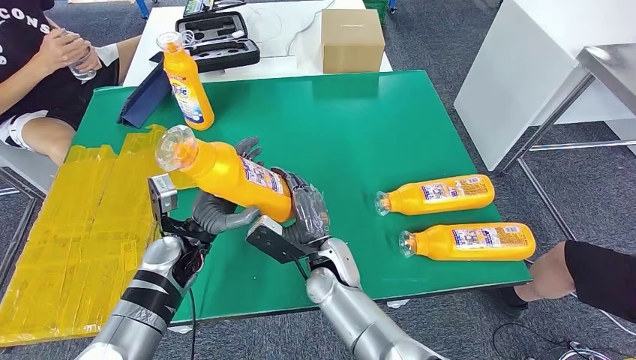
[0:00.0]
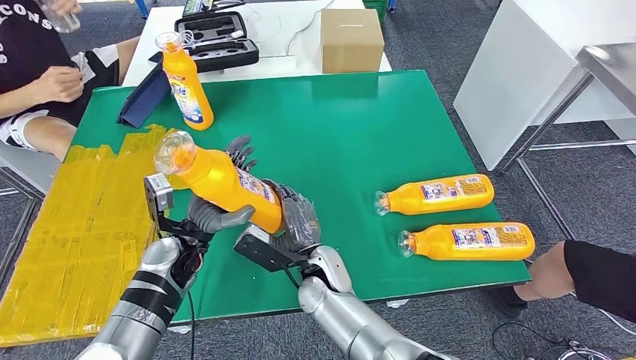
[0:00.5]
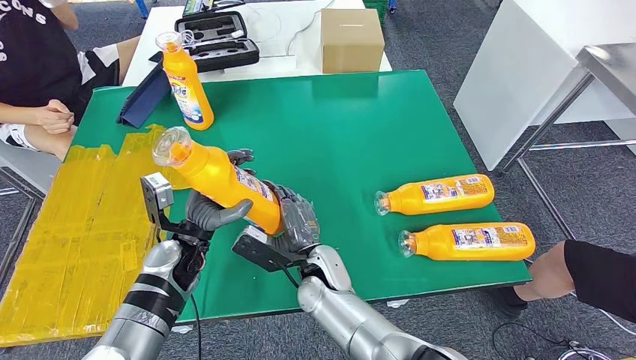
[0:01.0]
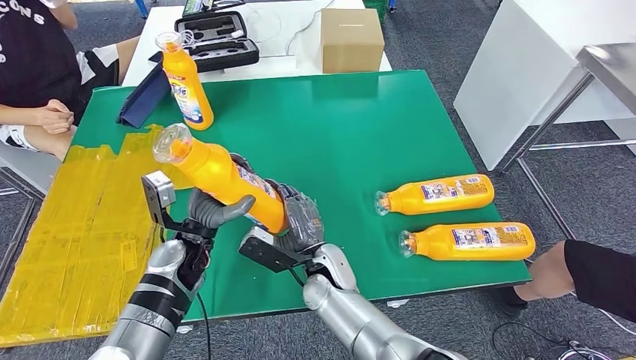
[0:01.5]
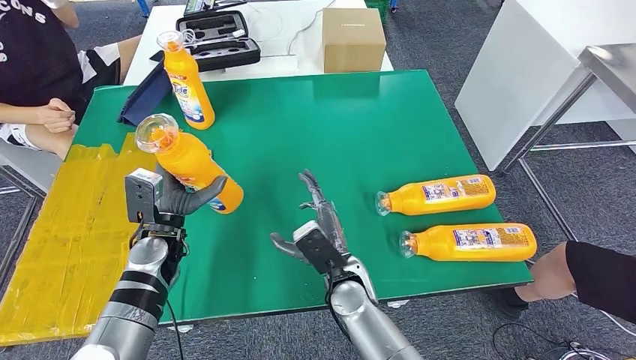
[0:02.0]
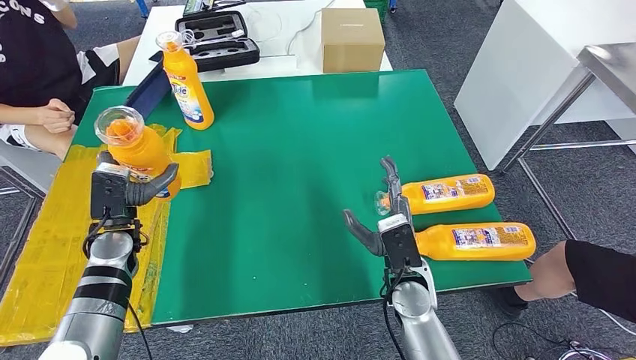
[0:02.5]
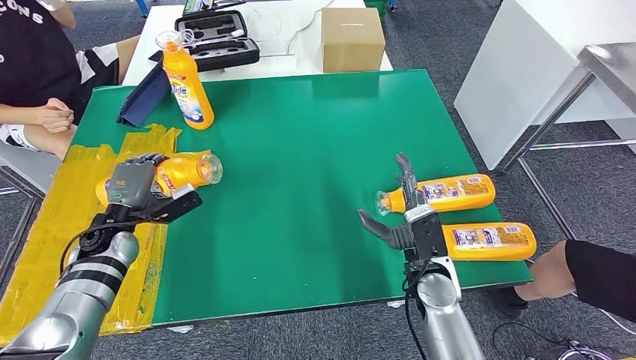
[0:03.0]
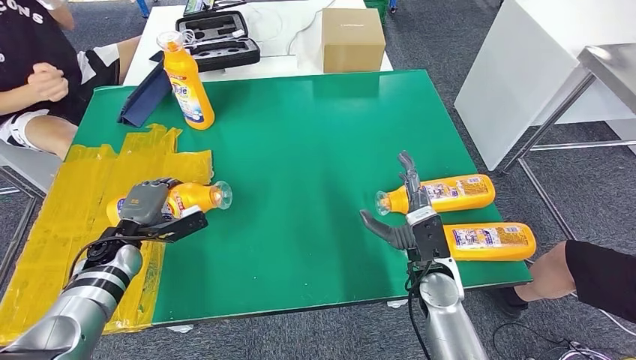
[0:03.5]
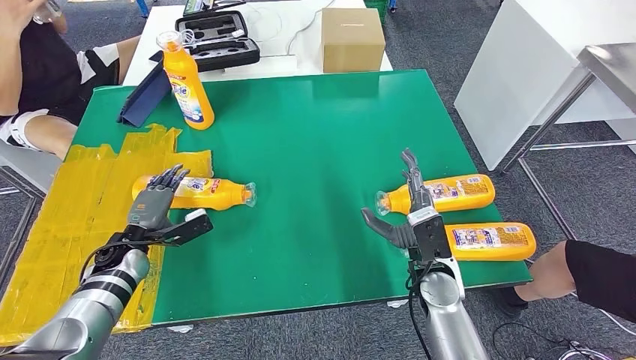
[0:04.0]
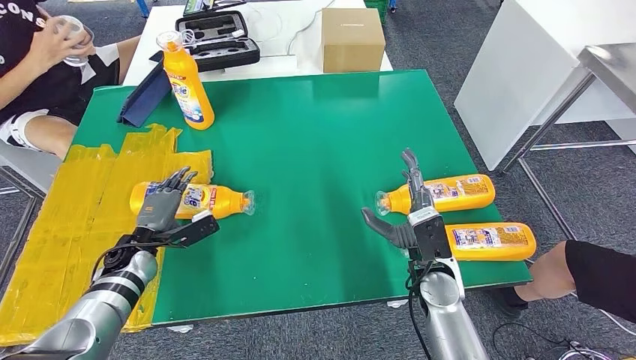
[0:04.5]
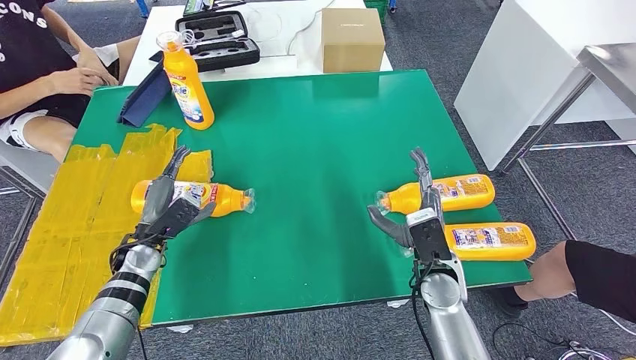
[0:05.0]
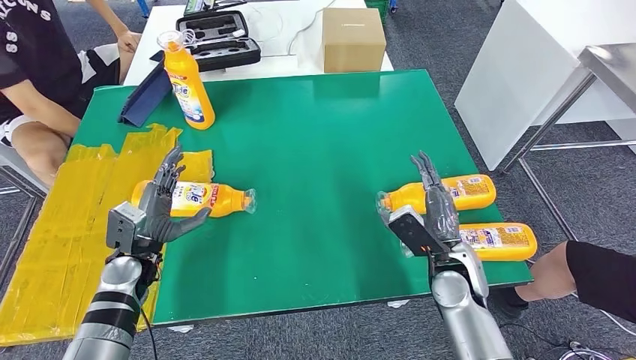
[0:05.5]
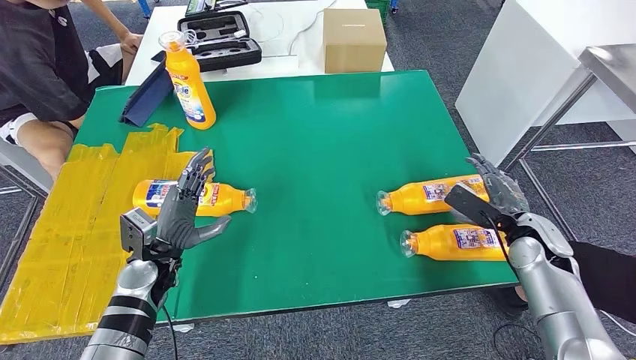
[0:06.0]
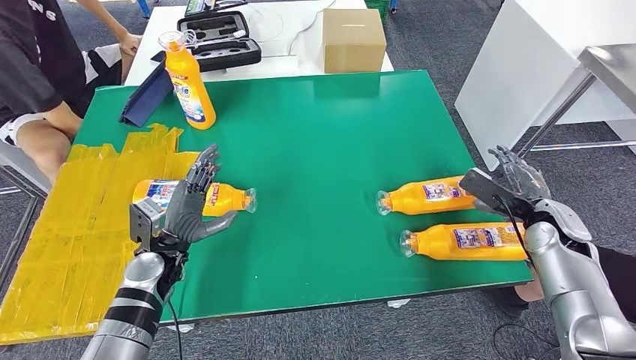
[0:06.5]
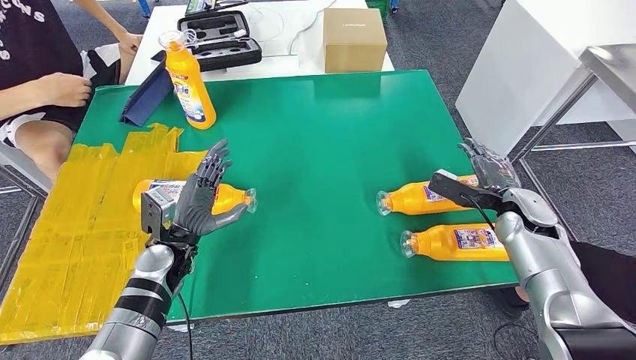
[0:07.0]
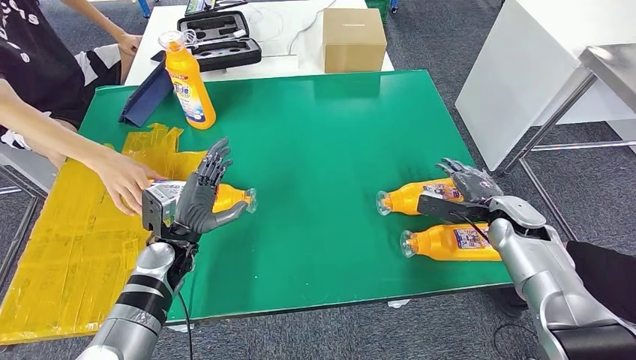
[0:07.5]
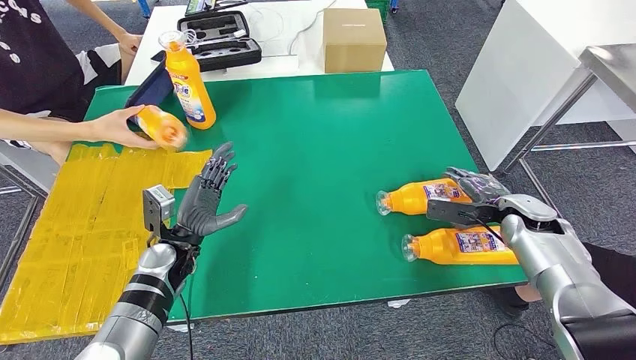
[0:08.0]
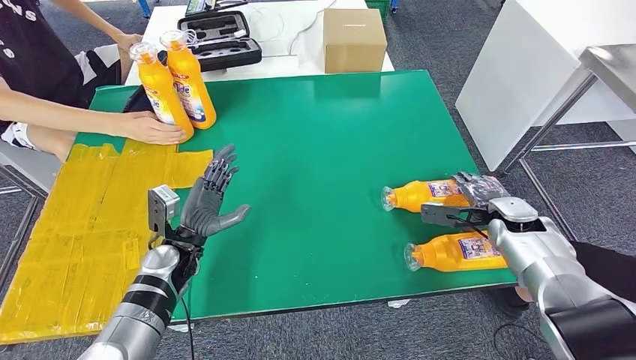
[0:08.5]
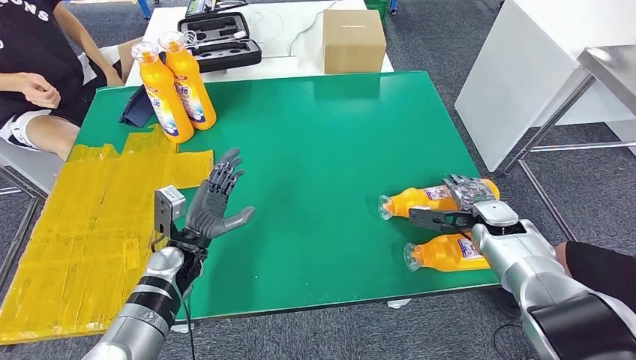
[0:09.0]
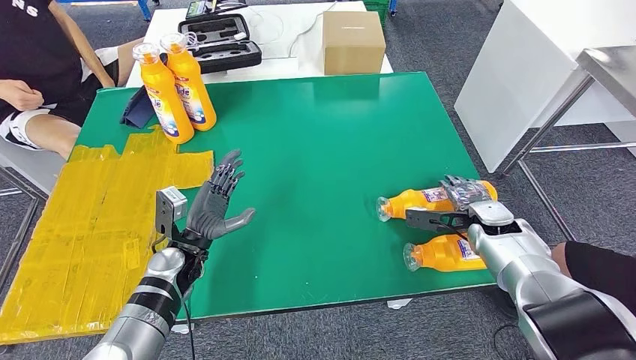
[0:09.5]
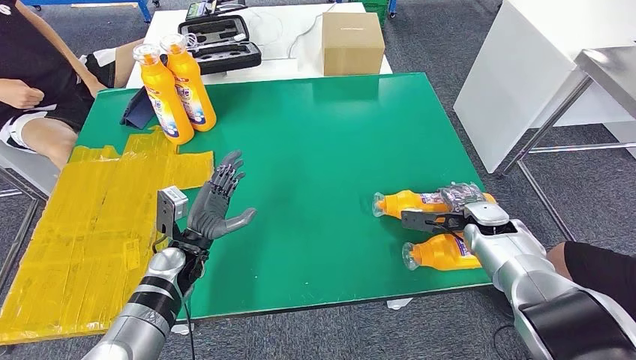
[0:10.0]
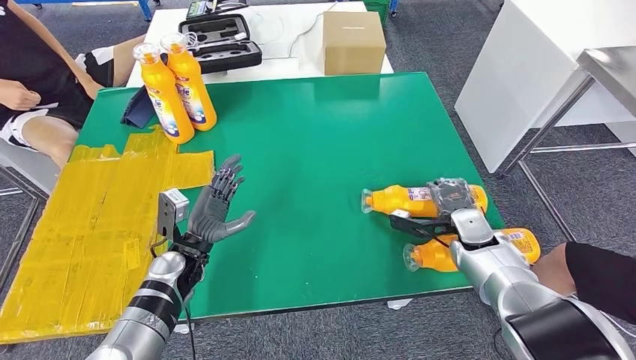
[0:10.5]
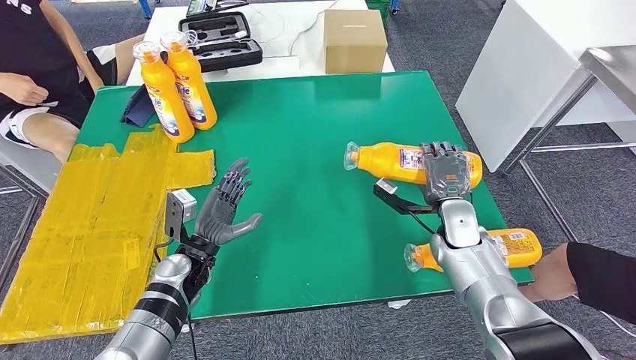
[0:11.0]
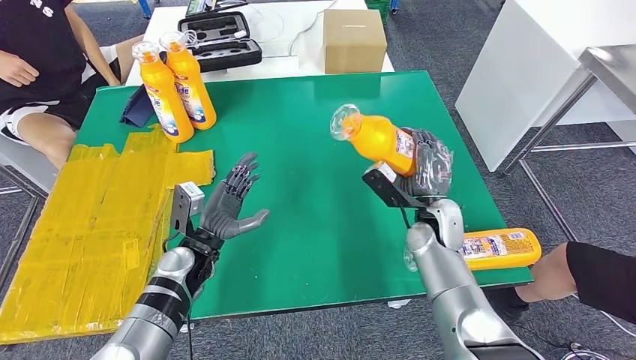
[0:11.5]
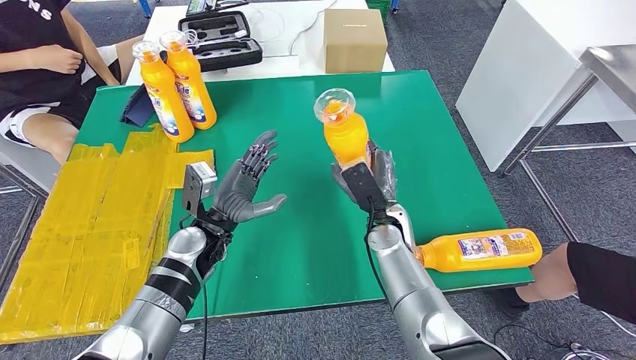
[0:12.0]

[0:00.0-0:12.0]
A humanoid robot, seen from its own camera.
Step, 0:00.0 to 0:04.0: Flip the fast-moving consumer goods bottle to the front side.
0:02.0 to 0:04.0: The right hand moves to the right, approximately 15 cm; the left hand is displaced to the left and downward by some 10 cm.
0:06.0 to 0:08.0: The right hand ends up roughly 5 cm from where it was.

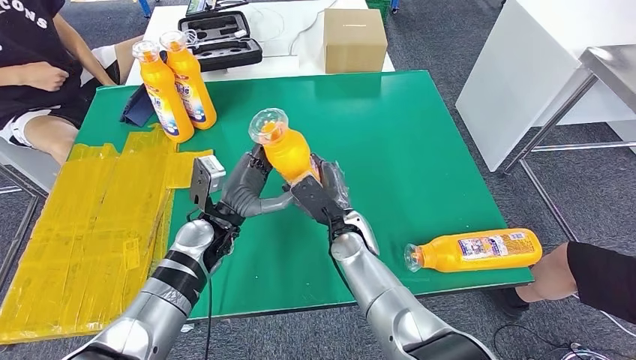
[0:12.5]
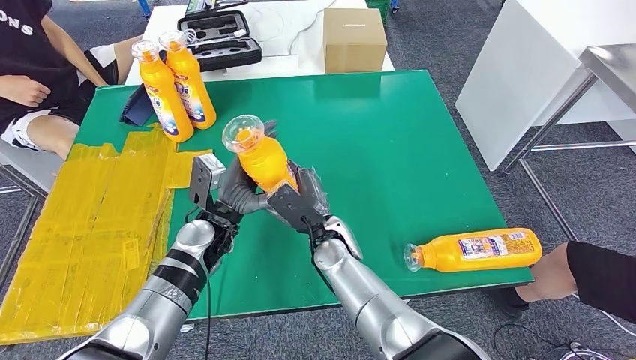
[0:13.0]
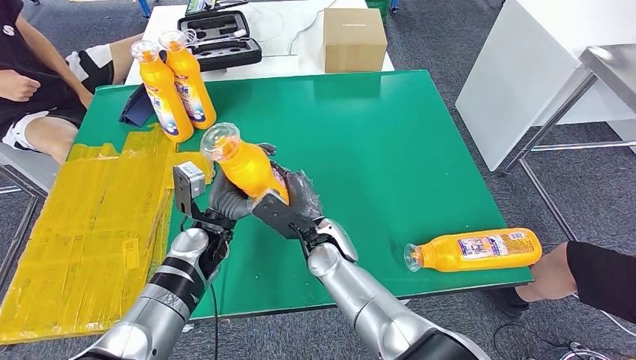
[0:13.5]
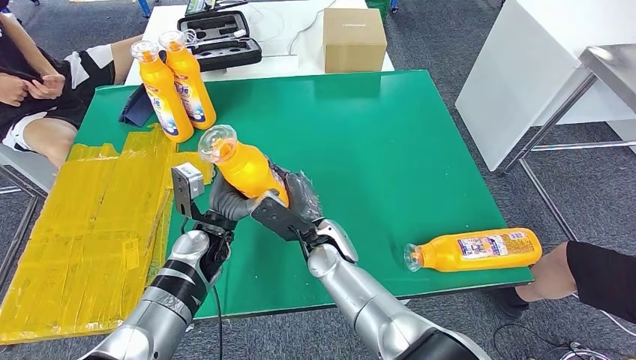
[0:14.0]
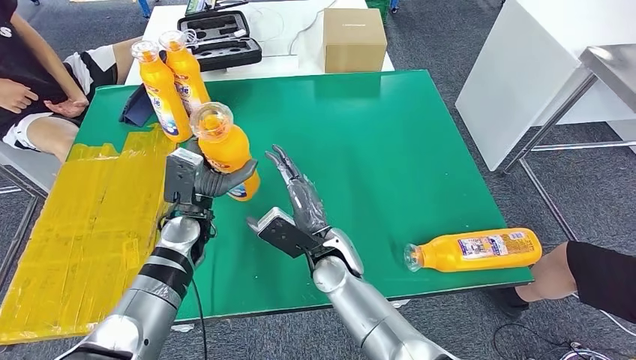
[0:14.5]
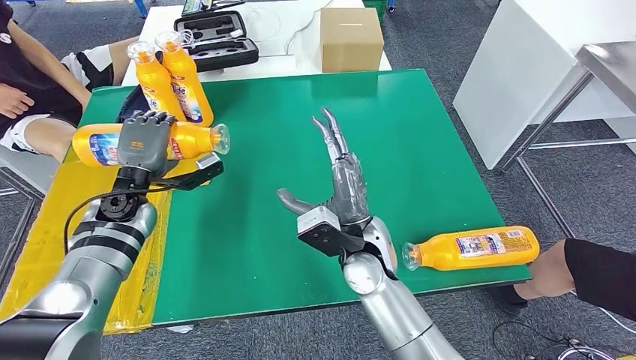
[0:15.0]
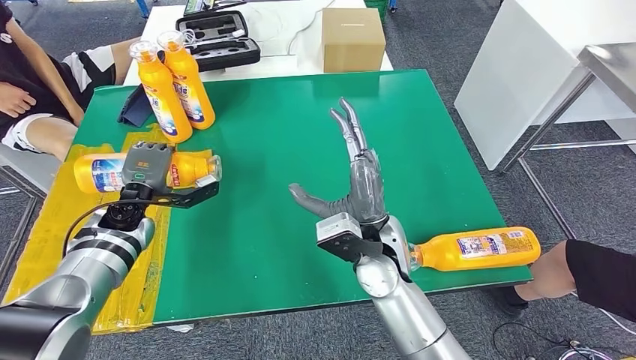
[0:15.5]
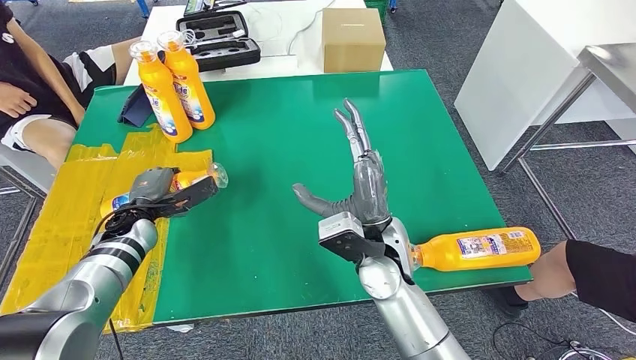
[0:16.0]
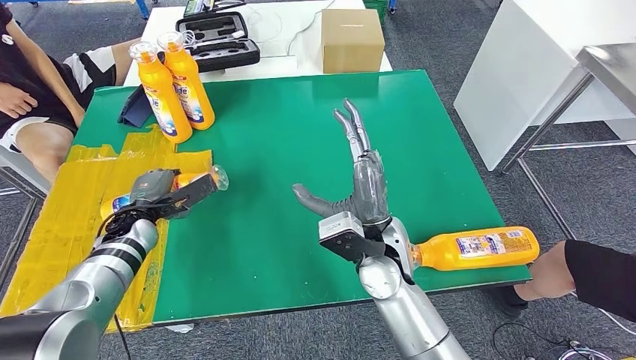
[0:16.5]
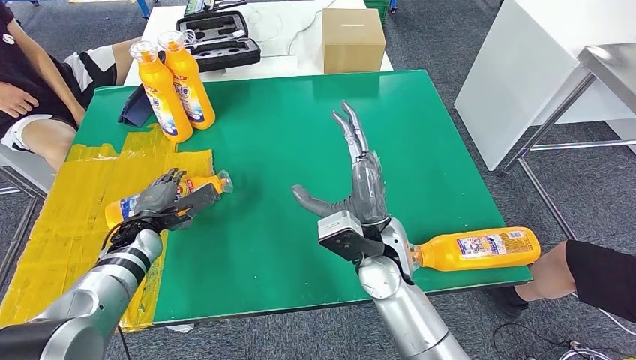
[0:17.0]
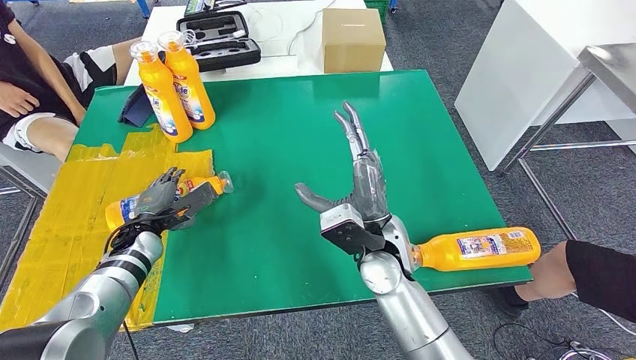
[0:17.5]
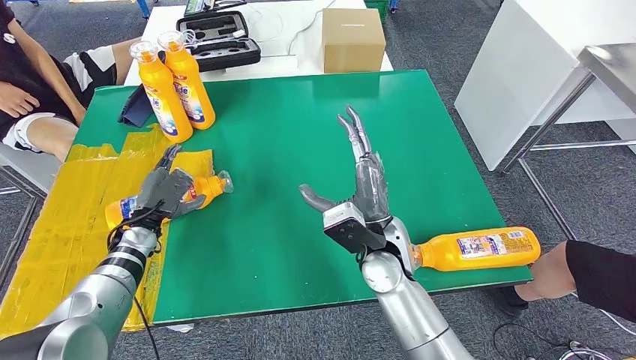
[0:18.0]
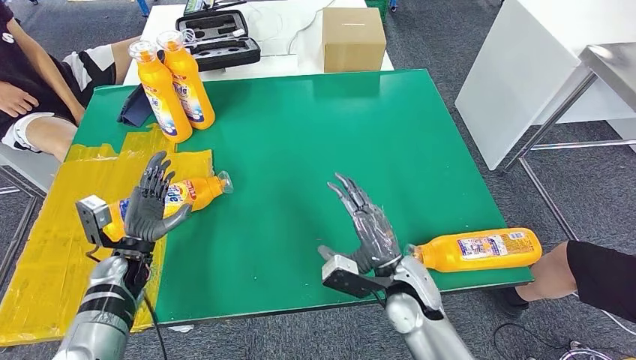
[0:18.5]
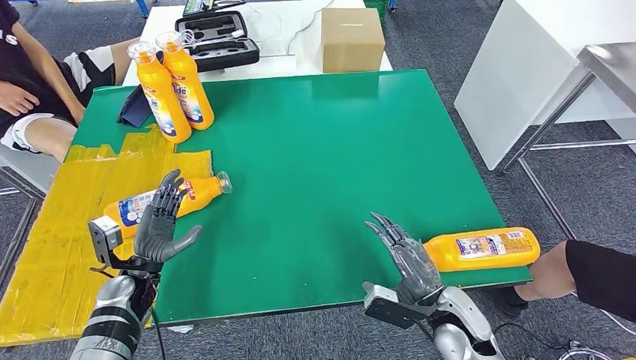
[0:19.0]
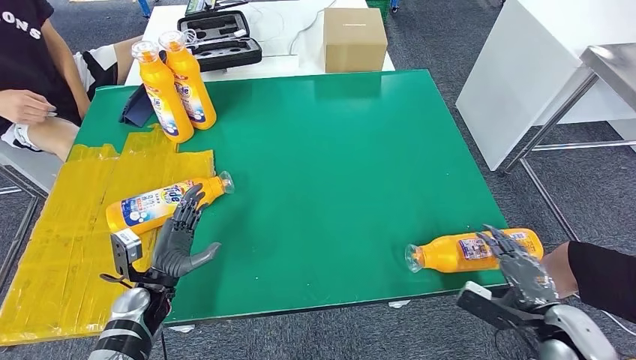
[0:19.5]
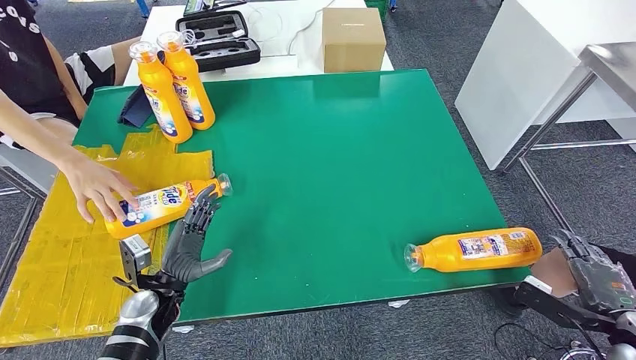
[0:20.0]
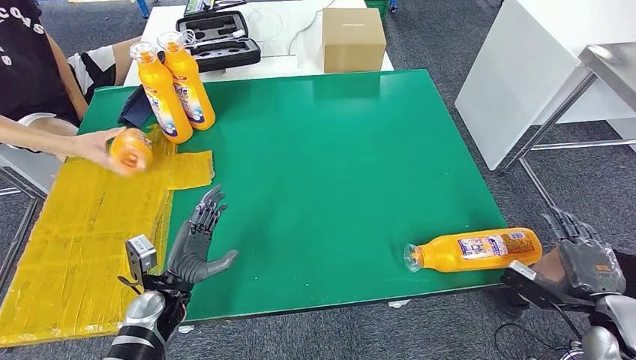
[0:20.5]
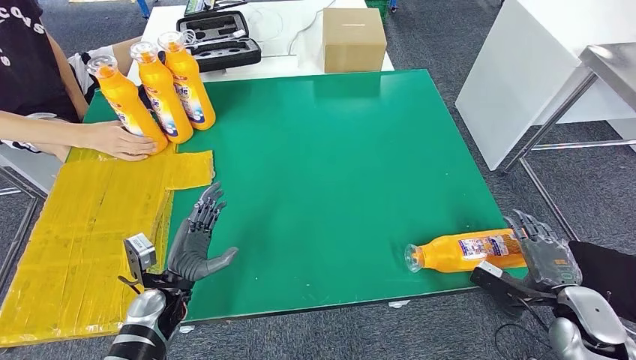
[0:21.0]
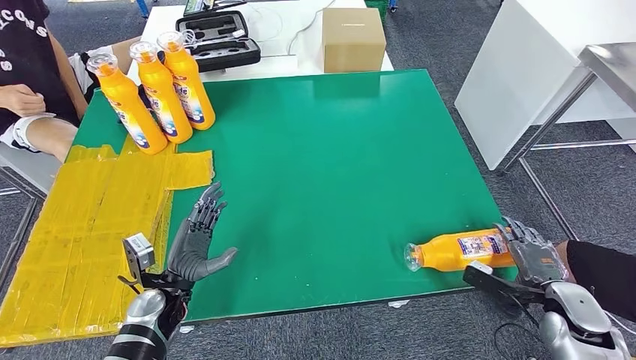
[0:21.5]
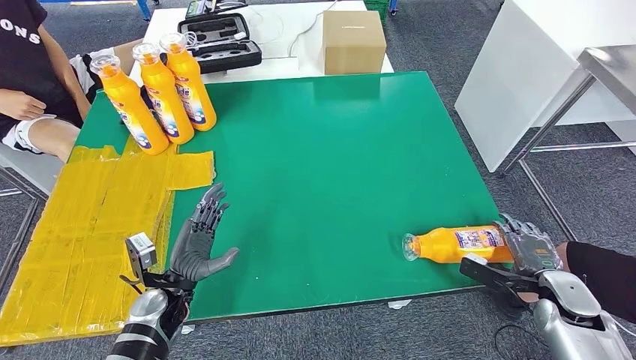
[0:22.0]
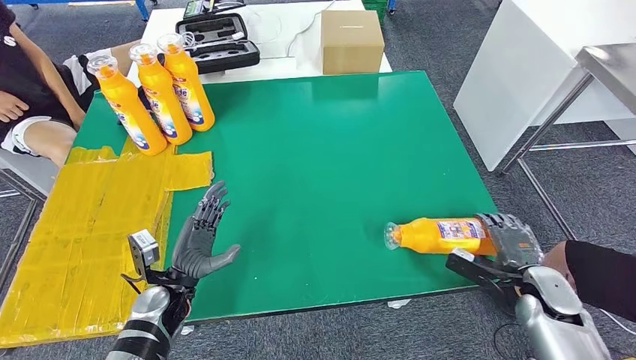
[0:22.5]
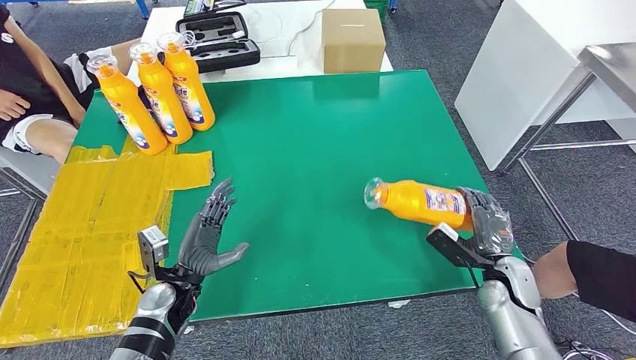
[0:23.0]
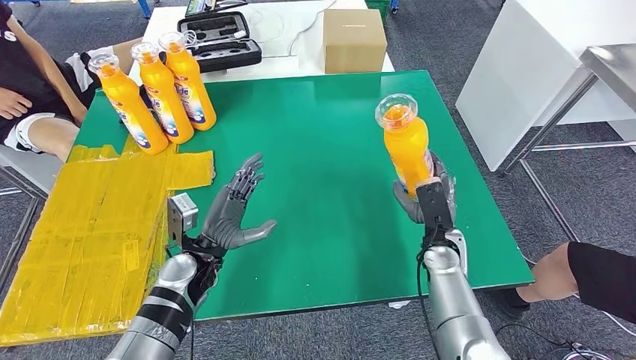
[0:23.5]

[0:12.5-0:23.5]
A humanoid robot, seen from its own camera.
Step, 0:13.0 to 0:16.0: Flip the fast-moving consumer goods bottle to the front side.
0:12.5 to 0:14.5: The right hand shifts by about 5 cm.
0:20.0 to 0:21.5: The right hand shifts roughly 10 cm forward and to the left.
